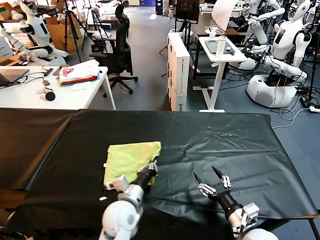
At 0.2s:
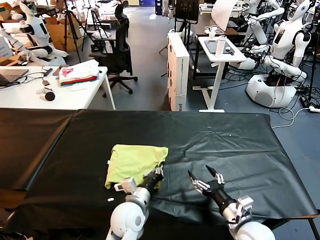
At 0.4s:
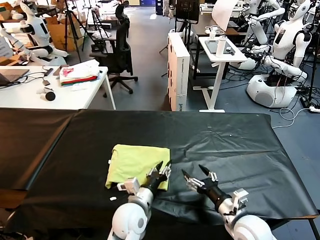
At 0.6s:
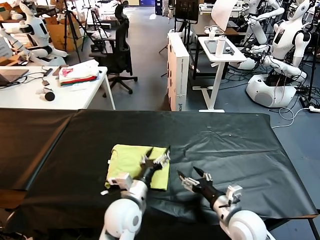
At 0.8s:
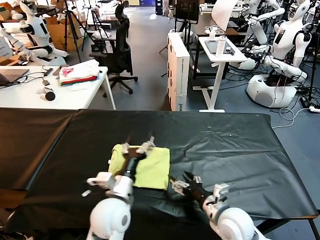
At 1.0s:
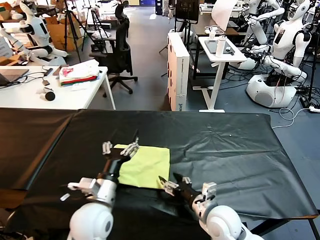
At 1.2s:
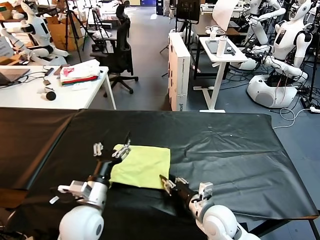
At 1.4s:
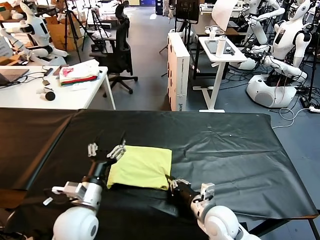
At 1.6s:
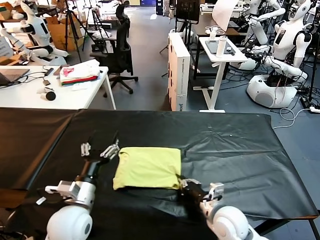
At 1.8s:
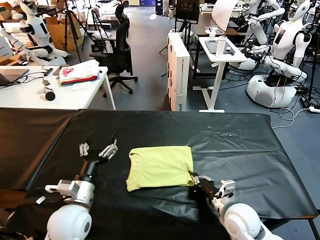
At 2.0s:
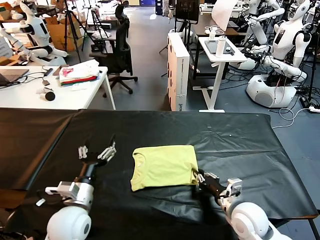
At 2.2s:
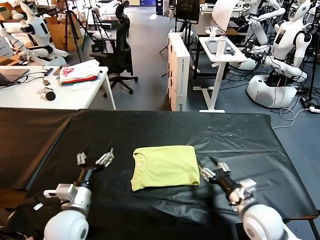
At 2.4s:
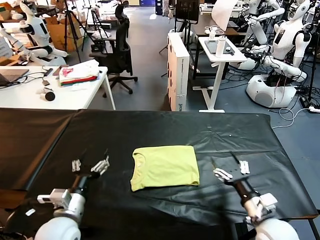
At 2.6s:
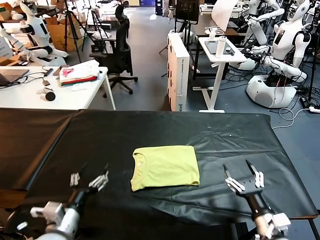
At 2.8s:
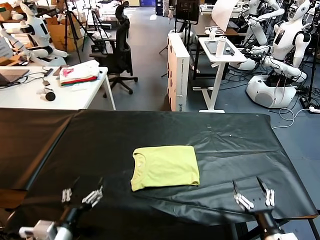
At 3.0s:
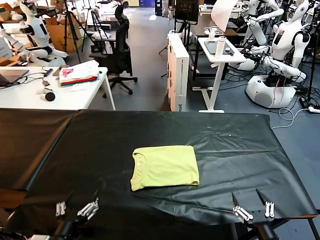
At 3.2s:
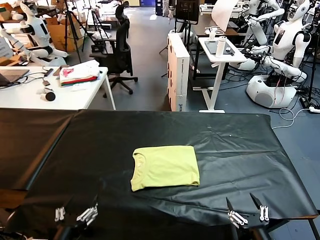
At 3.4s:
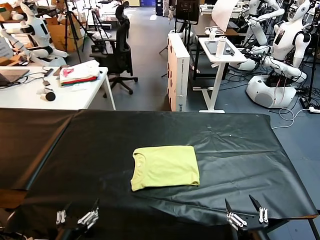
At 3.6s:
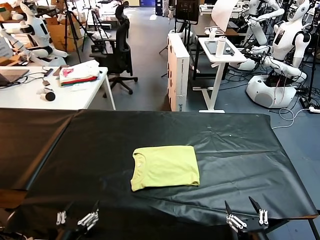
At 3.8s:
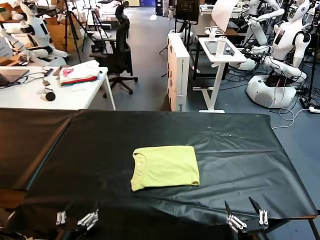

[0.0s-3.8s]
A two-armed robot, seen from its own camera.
Task of the whole recording: fold and organize the clothes.
Step, 0.6s to 2.0s: Drag the clothes to the center of the table.
0.0s to 1.2s: The left gripper moves to the left and upward, some 10 cm, and opens up. The right gripper is displaced to the left and forward by approximately 10 cm, and closes.
1.2s to 2.6s: The left gripper travels to the left and backward by roughly 10 cm. Meanwhile the right gripper shifts about 15 cm to the right and backward, and opens up.
2.6s to 3.8s: The grippers both shift backward by about 10 cm.

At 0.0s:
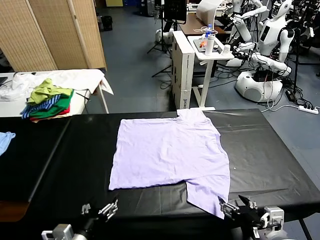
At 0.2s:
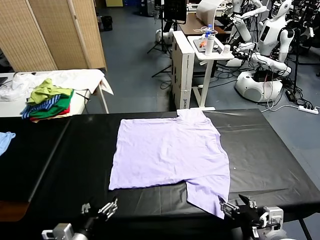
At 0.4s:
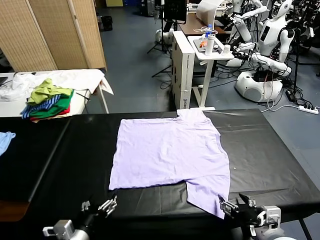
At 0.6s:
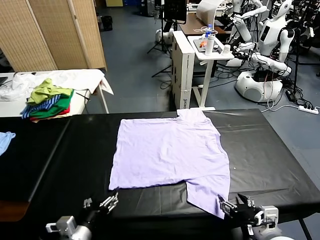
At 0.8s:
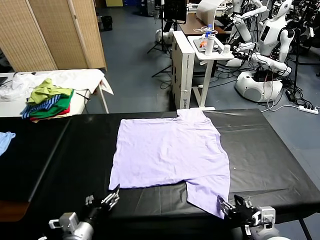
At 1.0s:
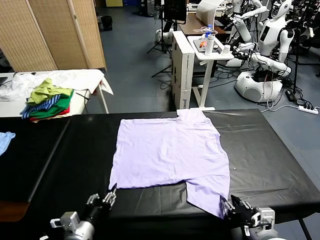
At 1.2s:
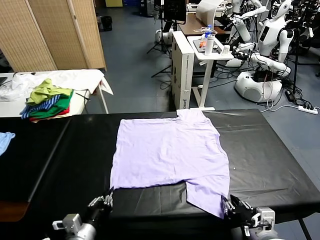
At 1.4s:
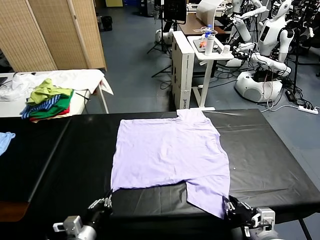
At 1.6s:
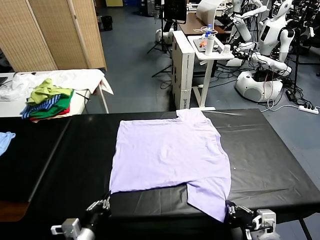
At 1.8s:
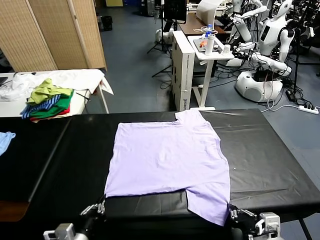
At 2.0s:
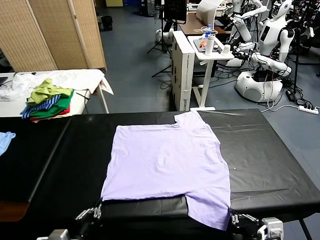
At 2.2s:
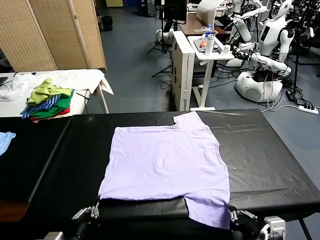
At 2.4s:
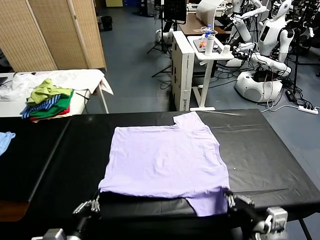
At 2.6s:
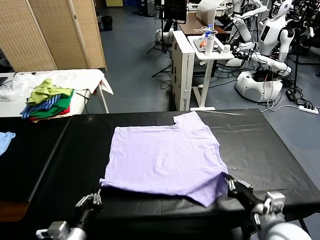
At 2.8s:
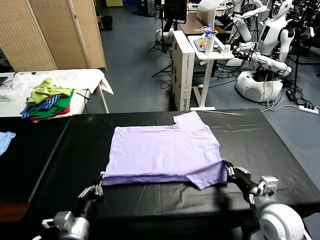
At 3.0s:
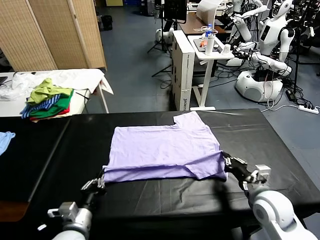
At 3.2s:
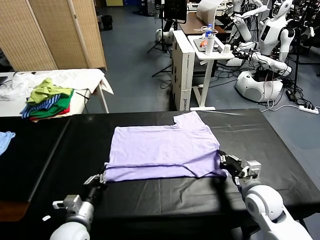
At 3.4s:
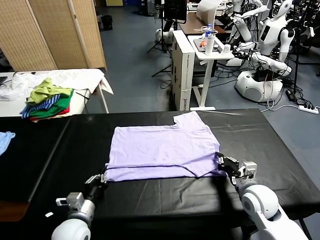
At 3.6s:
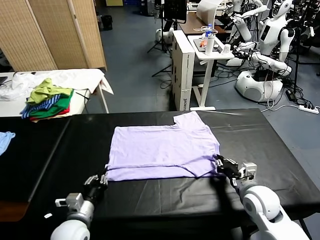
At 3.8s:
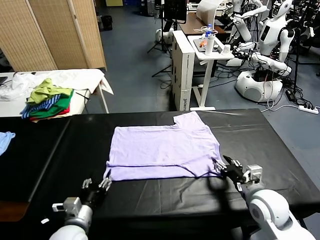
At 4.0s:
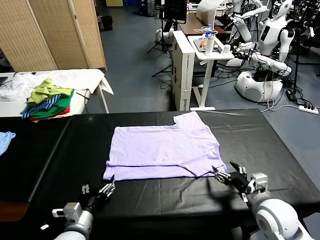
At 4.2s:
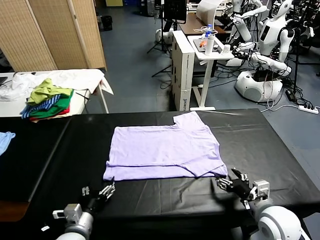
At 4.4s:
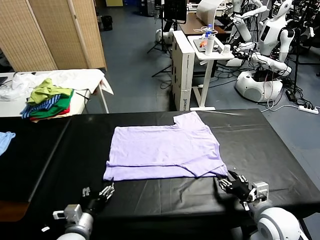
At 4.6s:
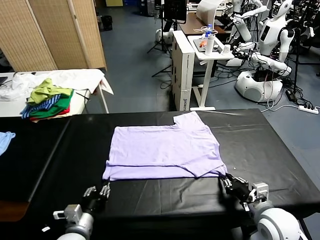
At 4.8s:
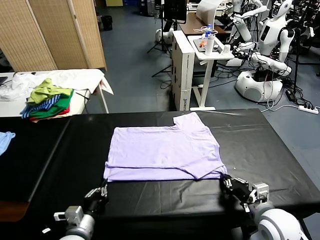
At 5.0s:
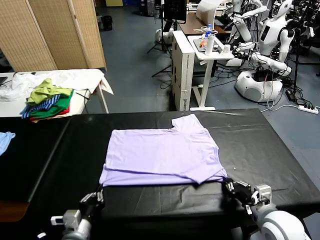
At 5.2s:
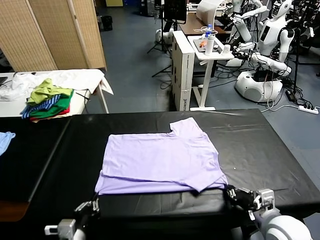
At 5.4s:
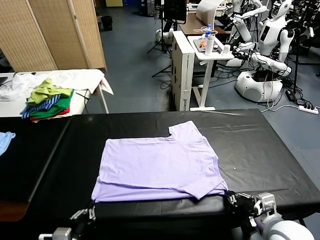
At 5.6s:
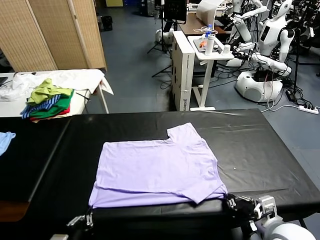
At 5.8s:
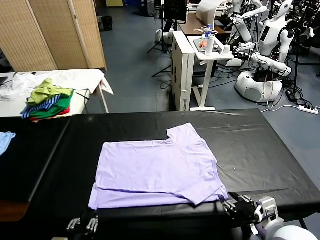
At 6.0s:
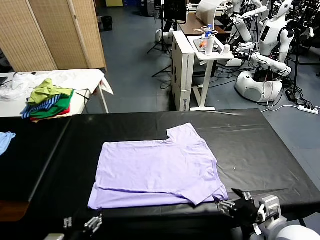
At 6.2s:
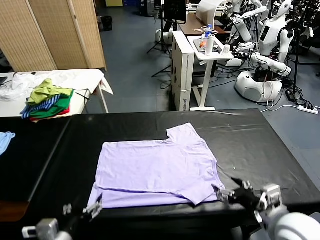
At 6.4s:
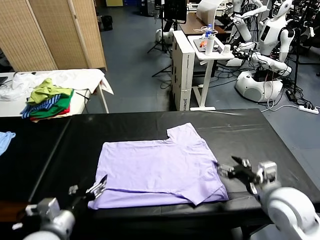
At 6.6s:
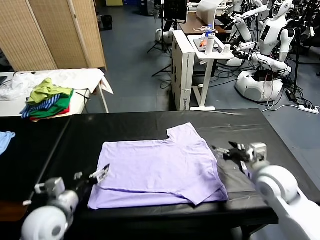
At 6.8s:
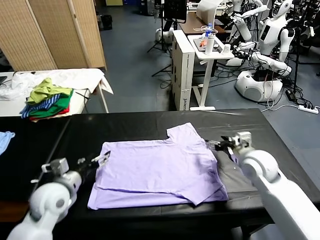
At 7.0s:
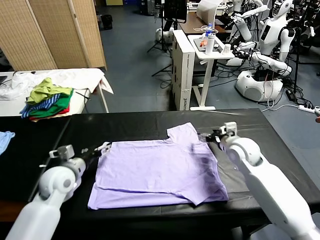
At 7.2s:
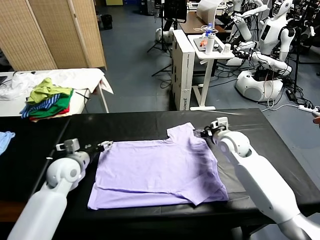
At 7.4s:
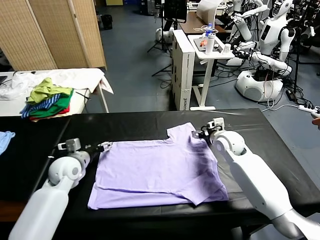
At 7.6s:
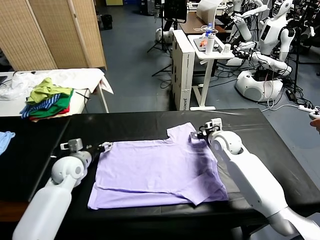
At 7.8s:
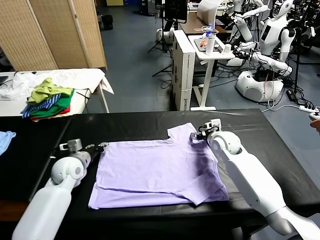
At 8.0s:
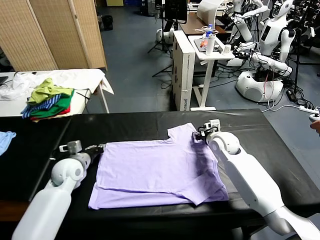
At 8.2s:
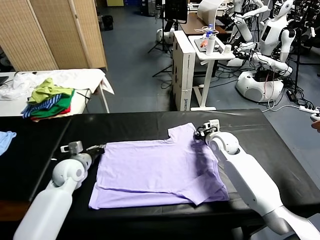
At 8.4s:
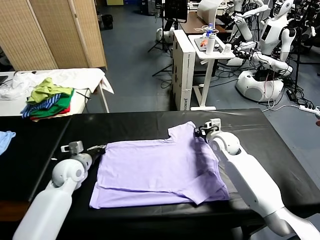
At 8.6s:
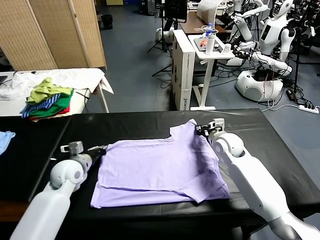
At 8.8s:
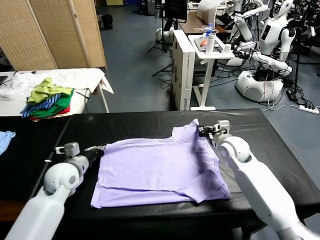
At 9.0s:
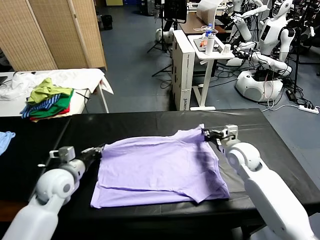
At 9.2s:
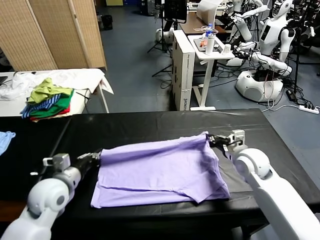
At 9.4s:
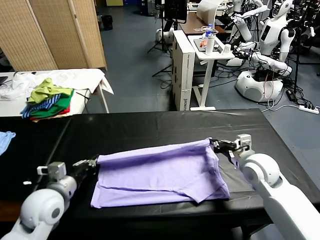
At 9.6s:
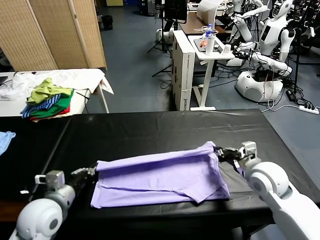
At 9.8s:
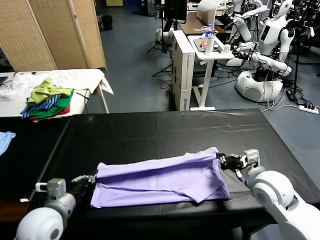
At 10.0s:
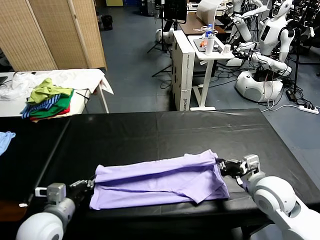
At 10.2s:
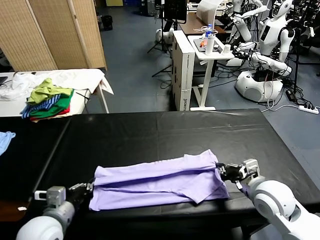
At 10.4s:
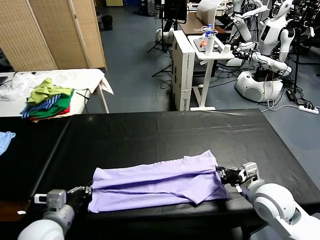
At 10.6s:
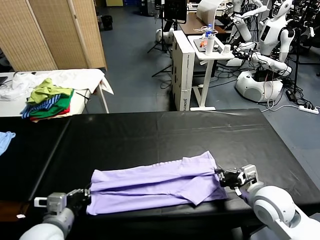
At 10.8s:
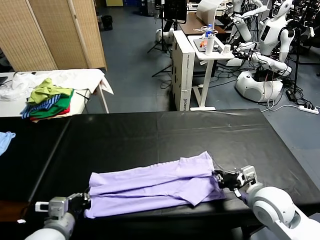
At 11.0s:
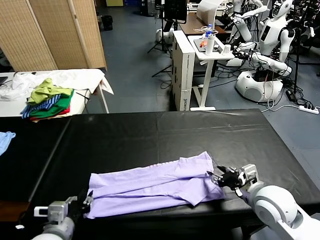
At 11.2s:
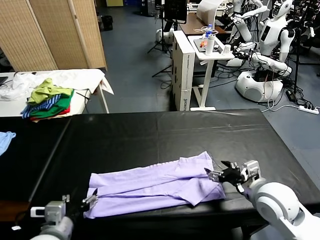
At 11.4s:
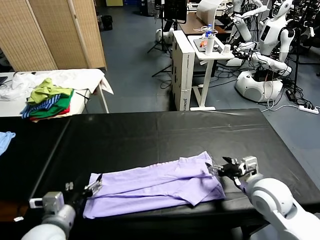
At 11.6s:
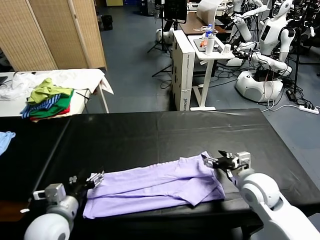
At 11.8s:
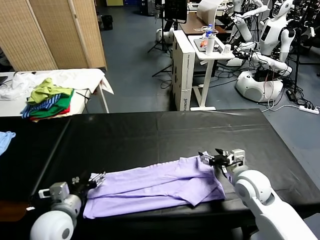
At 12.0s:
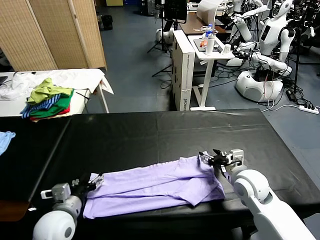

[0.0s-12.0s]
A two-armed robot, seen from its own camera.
Task of the whole recording: fold and organize the clothes.
Step, 0.0s to 1.6s: use both grippers simultaneously to clamp the lower edge of the clothing fabric.
Step, 2.0s to 3.8s: use both grippers to drag the lower edge of the fabric forward and fold it over the upper edge.
Step, 4.0s to 5.8s: Drag the clothes downward with both gripper.
Step, 6.0s to 8.2s: use both grippers simultaneously to clamp the upper edge of the clothing fabric.
Step, 8.6s to 11.0s: use both grippers to drag the upper edge of the fabric backward and fold it over the lower edge.
1.6s to 3.0s: The right gripper shifts roughly 20 cm forward. The left gripper moves forward, approximately 5 cm.
3.0s to 4.4s: The right gripper is displaced backward by about 5 cm, and opens, then closes once more. The left gripper opens up.
4.4s to 6.0s: The left gripper heads upward and backward, covering roughly 10 cm, and closes, then opens again. Meanwhile the right gripper shifts roughly 10 cm upward, and opens its fingers.
6.0s to 7.6s: The grippers both shift forward by roughly 30 cm.
7.6s to 9.0s: The left gripper goes approximately 10 cm backward and upward, and closes. The right gripper is displaced backward and to the right by approximately 10 cm, and closes its fingers.
9.0s to 10.4s: Both grippers move backward, some 10 cm.
10.4s to 12.0s: The left gripper moves roughly 5 cm, and opens. Meanwhile the right gripper is displaced forward by roughly 5 cm, and opens its fingers.

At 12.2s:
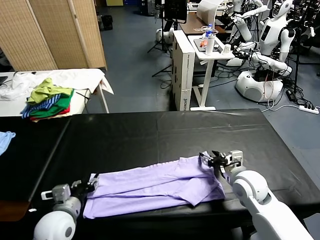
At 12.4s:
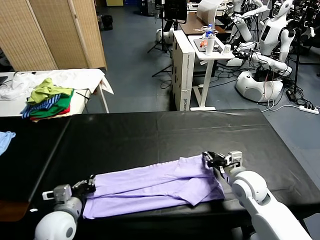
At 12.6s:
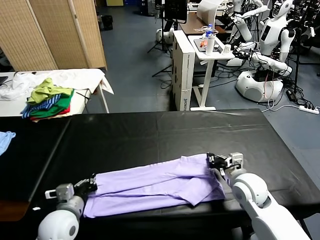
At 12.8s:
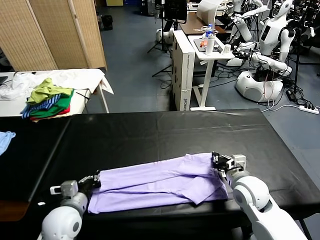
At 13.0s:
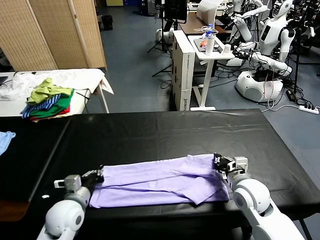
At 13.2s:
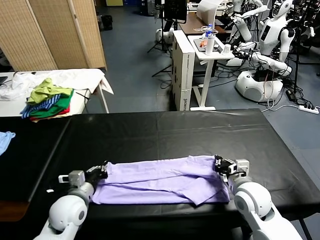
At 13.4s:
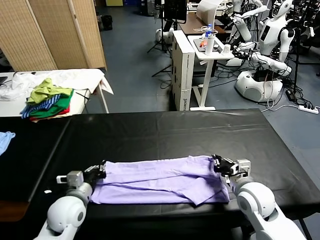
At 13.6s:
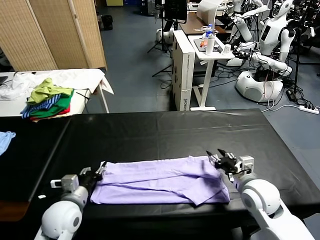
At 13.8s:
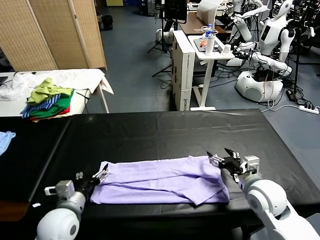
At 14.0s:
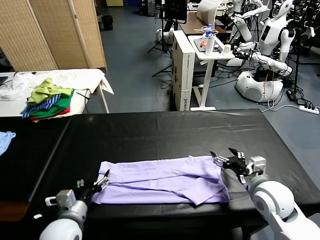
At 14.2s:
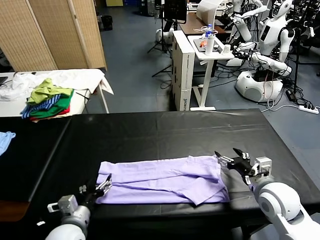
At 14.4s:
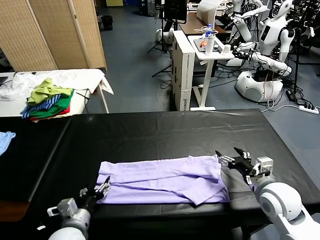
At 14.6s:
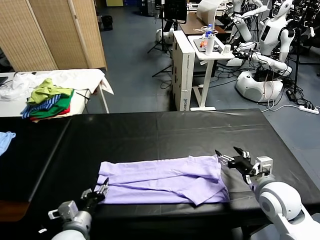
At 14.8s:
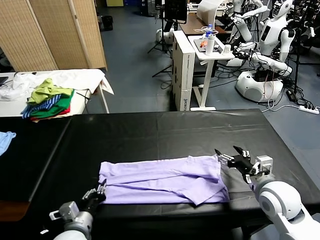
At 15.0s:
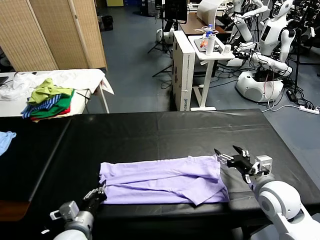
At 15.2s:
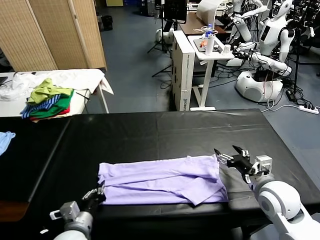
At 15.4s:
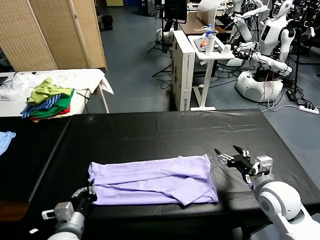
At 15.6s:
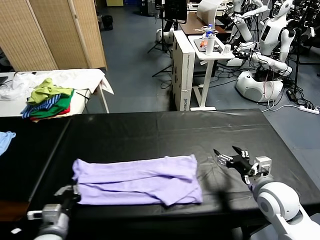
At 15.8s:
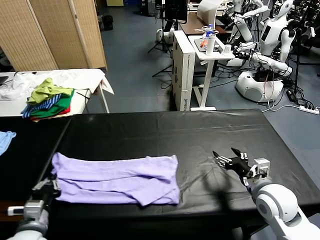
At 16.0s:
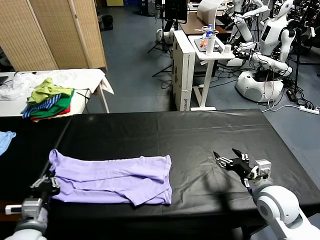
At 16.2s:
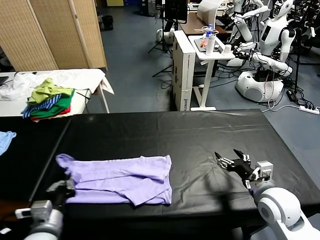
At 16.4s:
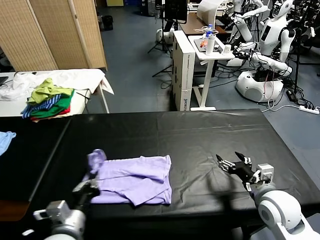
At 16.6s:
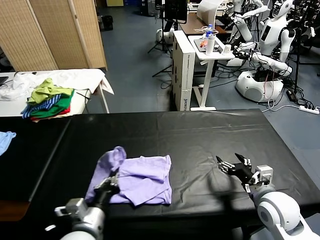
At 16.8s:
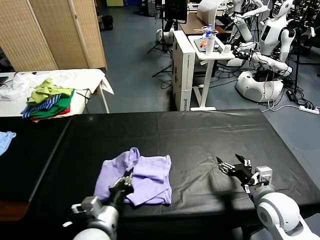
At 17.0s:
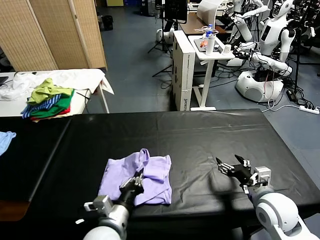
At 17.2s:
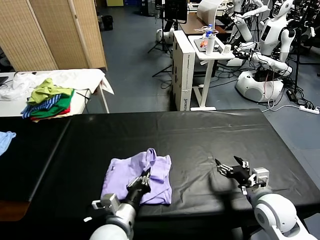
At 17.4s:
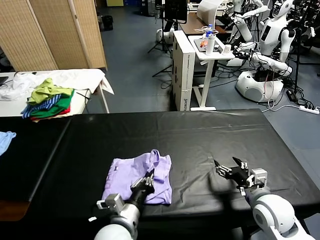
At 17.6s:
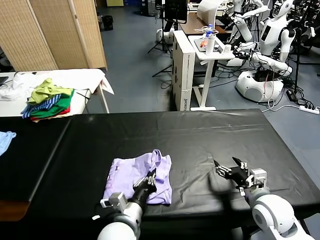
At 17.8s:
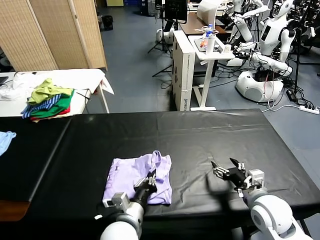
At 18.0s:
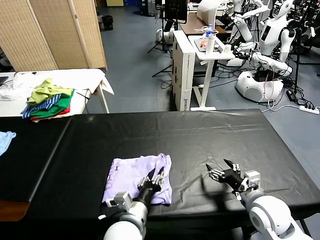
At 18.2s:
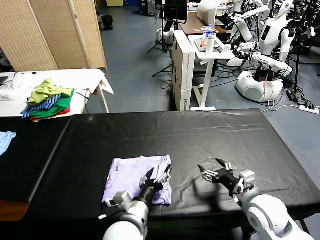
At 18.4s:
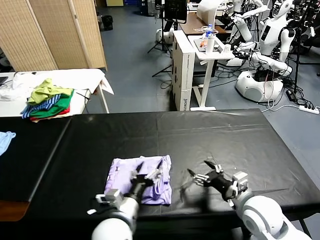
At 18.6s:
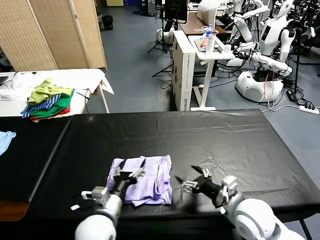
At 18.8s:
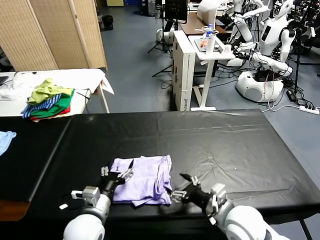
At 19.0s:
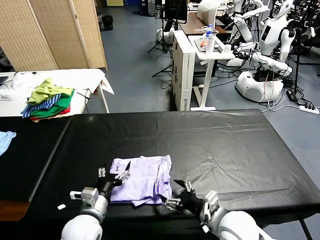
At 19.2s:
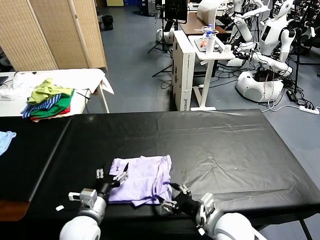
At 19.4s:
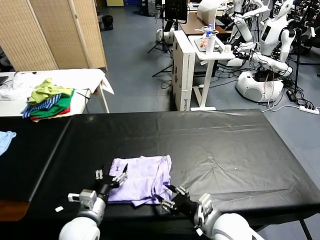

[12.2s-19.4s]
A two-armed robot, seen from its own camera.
Task of the whole recording: fold and organize the clothes.
Step, 12.2s to 15.0s: use the left gripper to clamp the left edge of the fabric.
Step, 15.2s to 18.2s: use the left gripper to drag the left edge of the fabric to the left and folds it over the right edge.
12.2s to 13.6s: The right gripper shifts by some 5 cm, and opens its fingers. The left gripper closes and opens again.
13.6s to 15.0s: The left gripper moves backward, about 5 cm, and closes.
15.0s to 16.6s: The left gripper travels upward and to the right by some 10 cm.
16.6s to 18.0s: The left gripper is displaced to the right by approximately 10 cm, and opens up.
18.0s to 19.4s: Both grippers move to the left, approximately 10 cm. The left gripper opens up; the right gripper closes its fingers.
